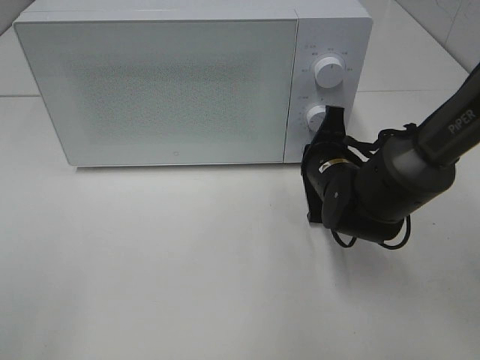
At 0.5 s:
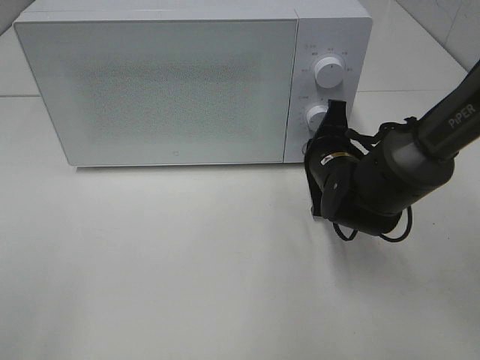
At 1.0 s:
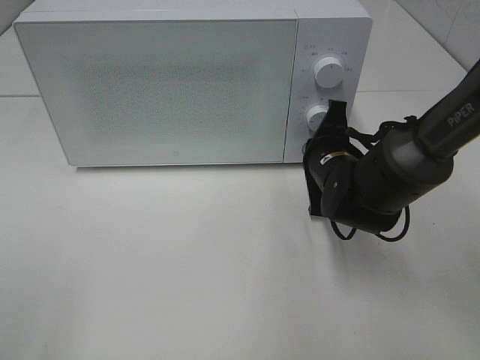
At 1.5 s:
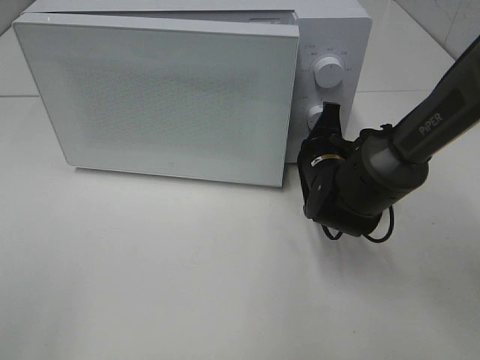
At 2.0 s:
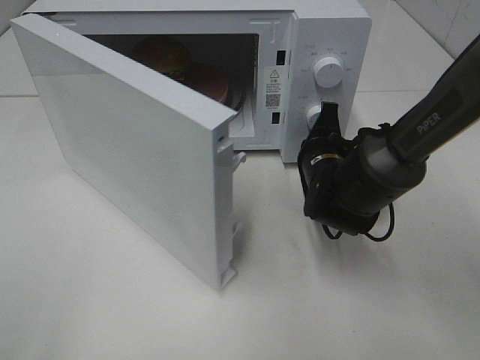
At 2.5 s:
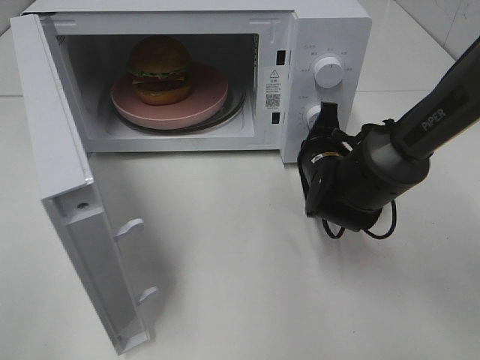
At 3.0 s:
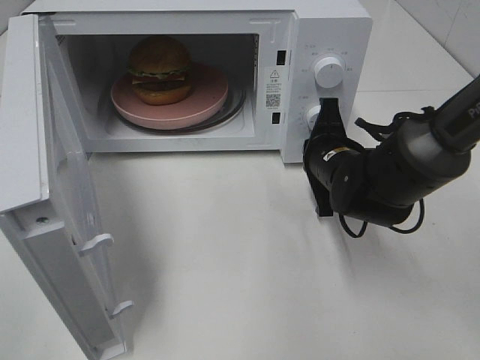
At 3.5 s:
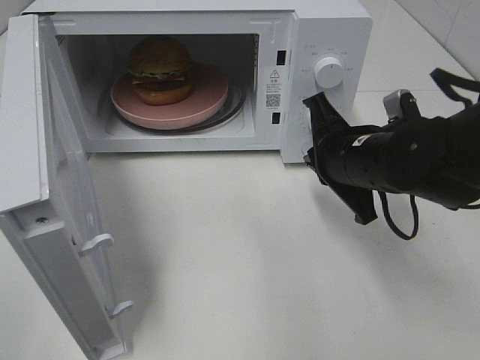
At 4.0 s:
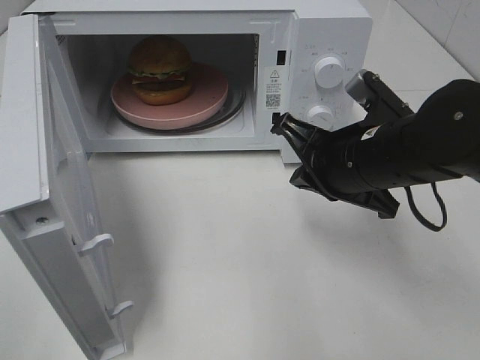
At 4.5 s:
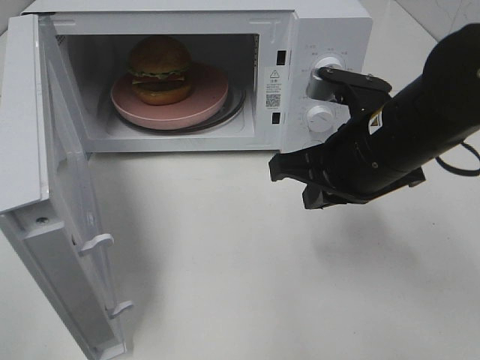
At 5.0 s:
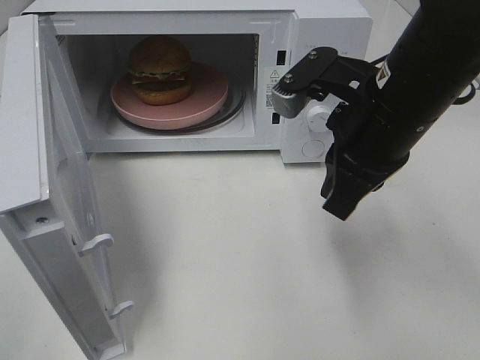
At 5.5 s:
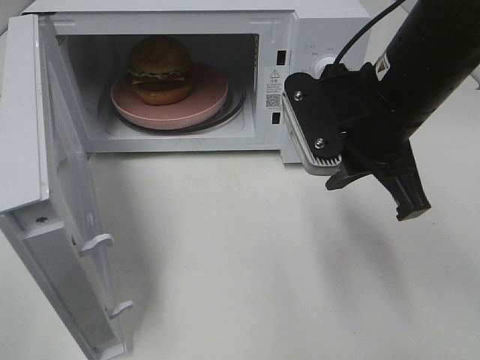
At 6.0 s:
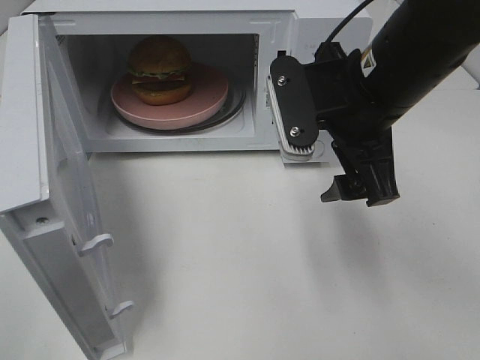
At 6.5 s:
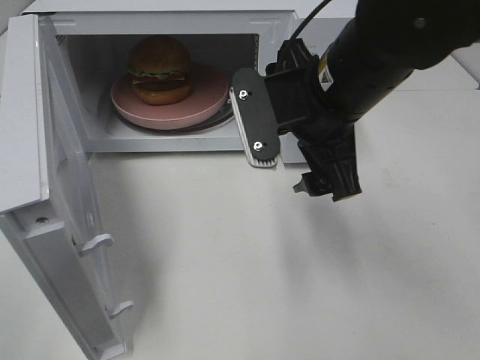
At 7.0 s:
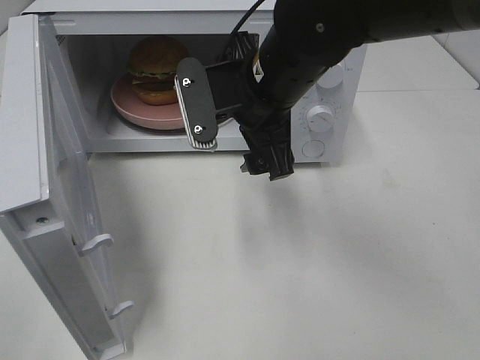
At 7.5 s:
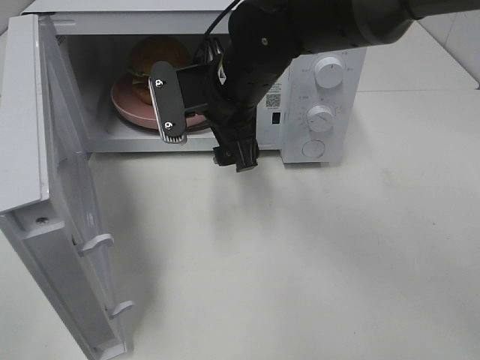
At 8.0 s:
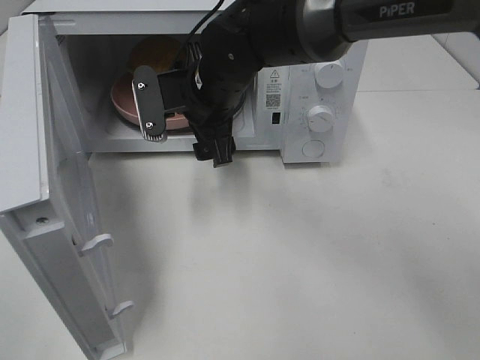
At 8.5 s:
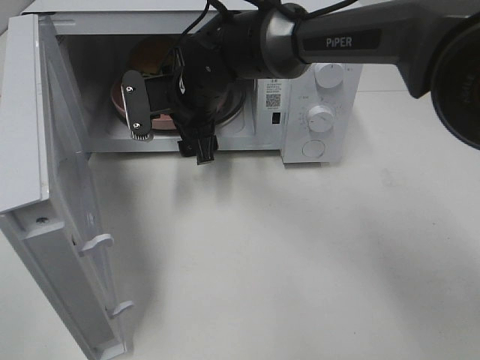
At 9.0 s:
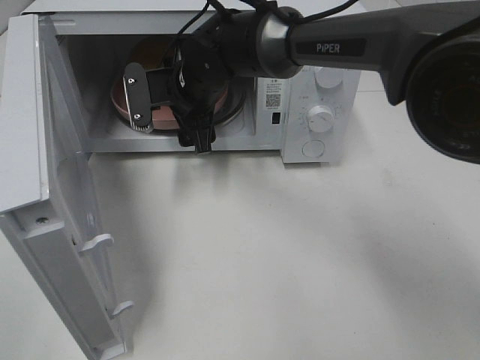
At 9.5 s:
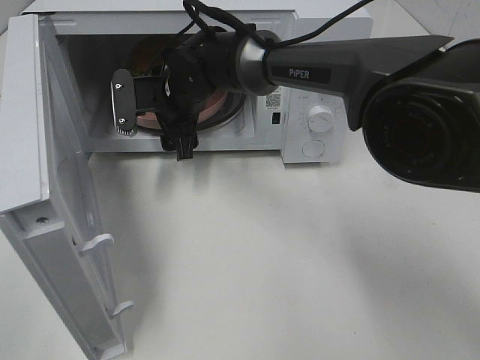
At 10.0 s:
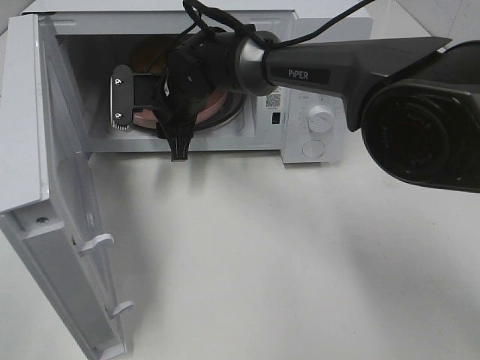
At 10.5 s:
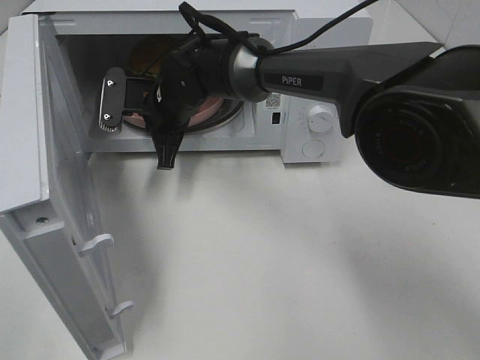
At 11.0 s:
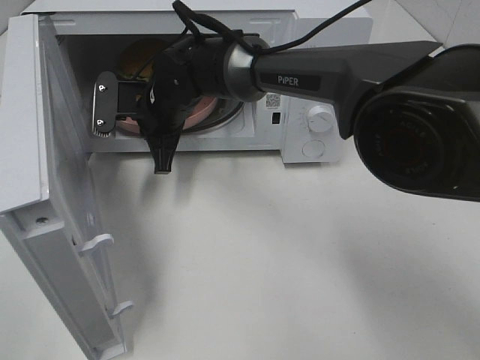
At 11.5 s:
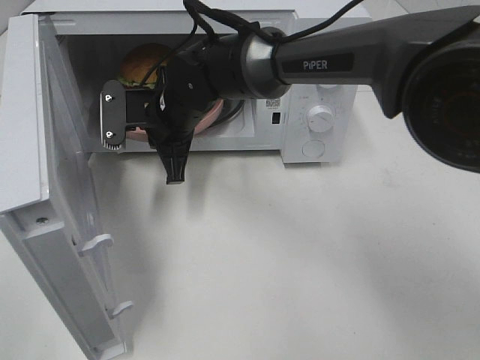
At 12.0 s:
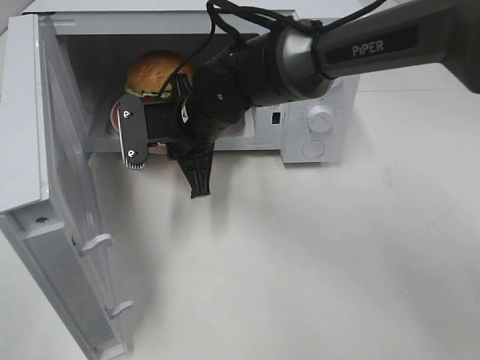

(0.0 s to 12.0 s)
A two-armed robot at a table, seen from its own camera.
Task of the whole recording: Heat the burger.
Step, 0.0 s - 3.0 s: Right hand: press the switch.
Step, 3.5 s - 10.5 s: Right hand: grab the plate with the hamburger.
2.0 s - 4.0 s: The right gripper goes about 15 cm upward and backward.
4.0 s - 6.0 s: The right gripper heads upward, covering roughly 10 cm, and opens its fingers.
6.0 s - 8.0 s: The right gripper moves to the left, forward and downward, about 20 cm.
8.0 s - 10.0 s: The right gripper is displaced forward by roughly 5 cm, and closes up.
10.0 s - 12.0 s: The right gripper moves backward, roughly 10 cm, and closes up.

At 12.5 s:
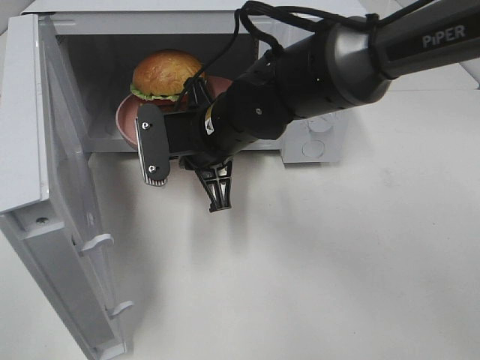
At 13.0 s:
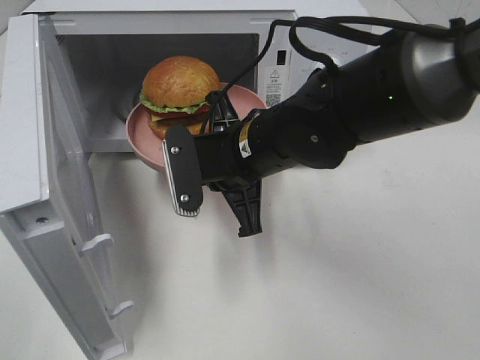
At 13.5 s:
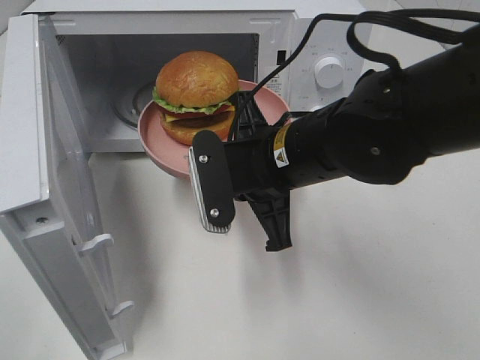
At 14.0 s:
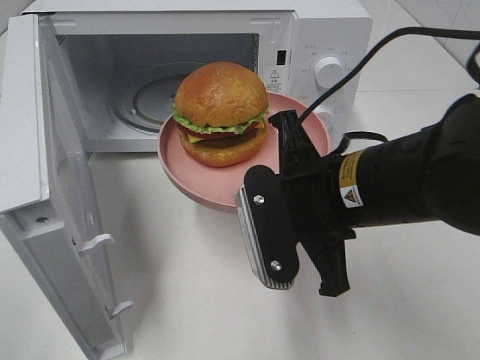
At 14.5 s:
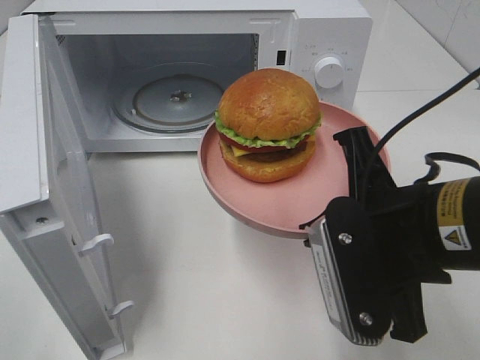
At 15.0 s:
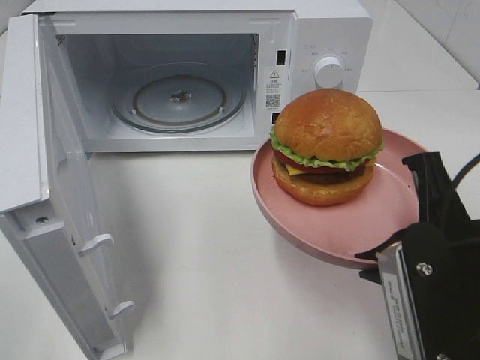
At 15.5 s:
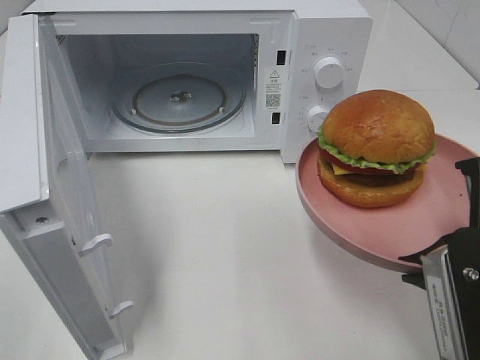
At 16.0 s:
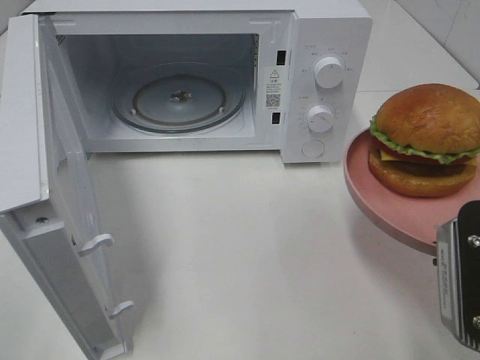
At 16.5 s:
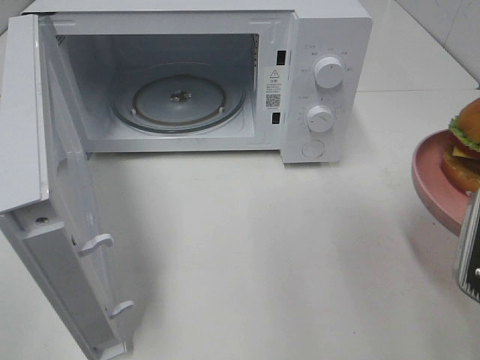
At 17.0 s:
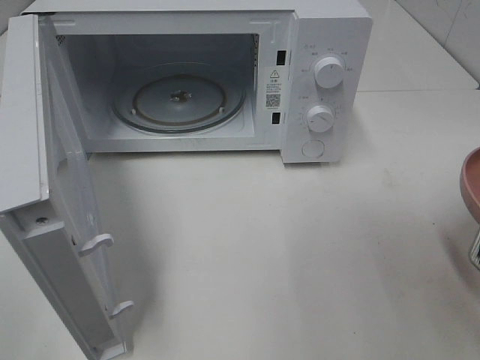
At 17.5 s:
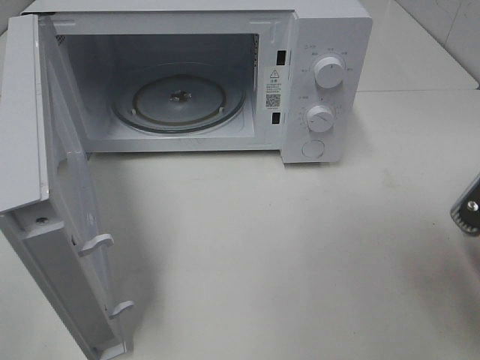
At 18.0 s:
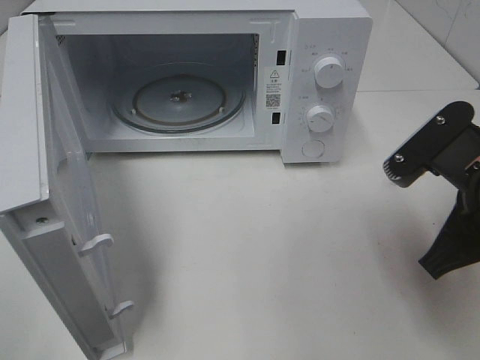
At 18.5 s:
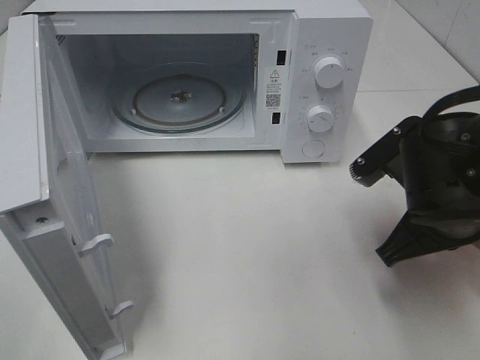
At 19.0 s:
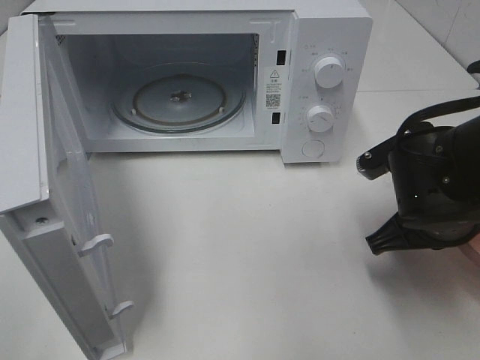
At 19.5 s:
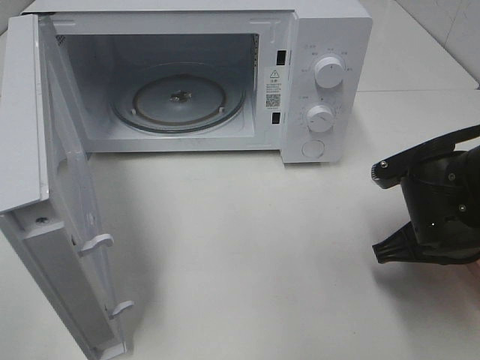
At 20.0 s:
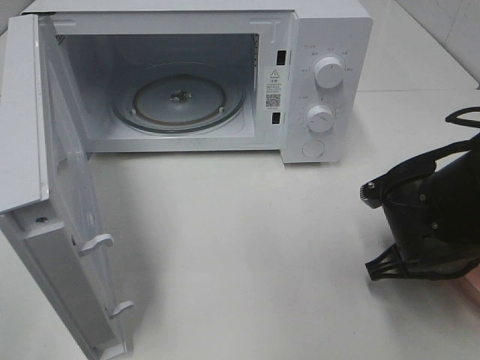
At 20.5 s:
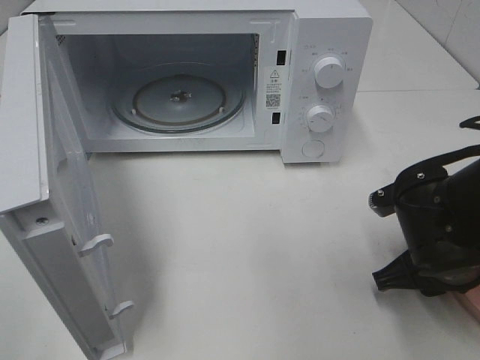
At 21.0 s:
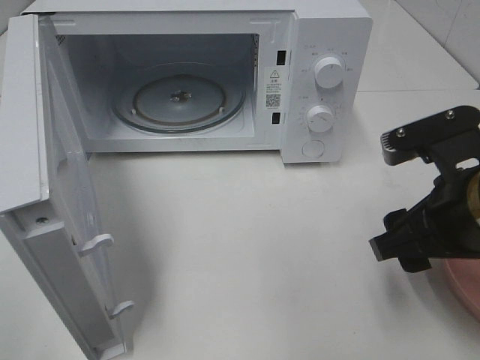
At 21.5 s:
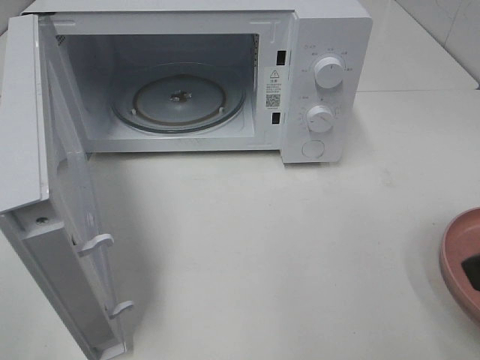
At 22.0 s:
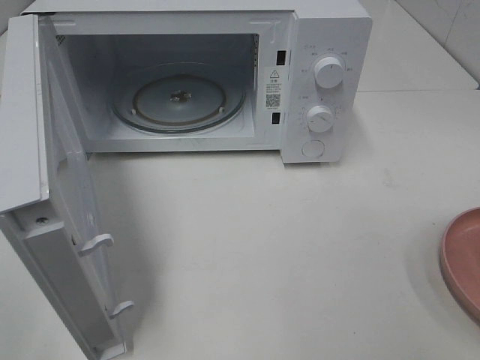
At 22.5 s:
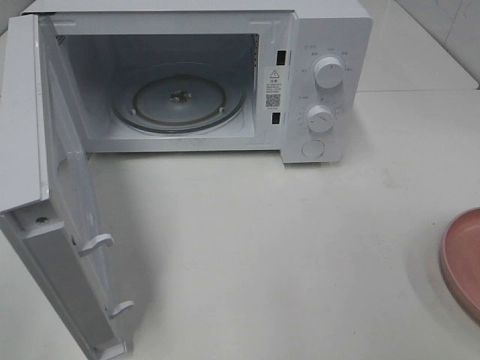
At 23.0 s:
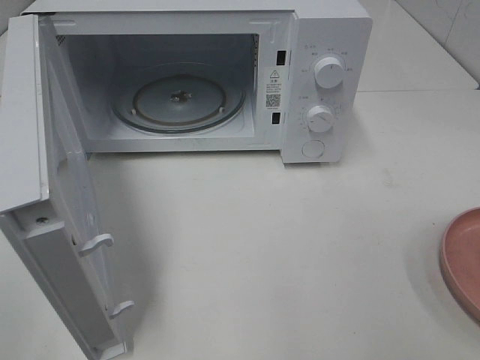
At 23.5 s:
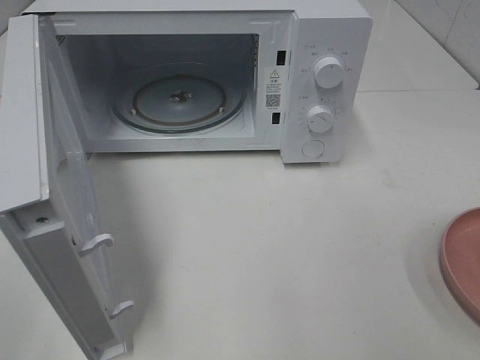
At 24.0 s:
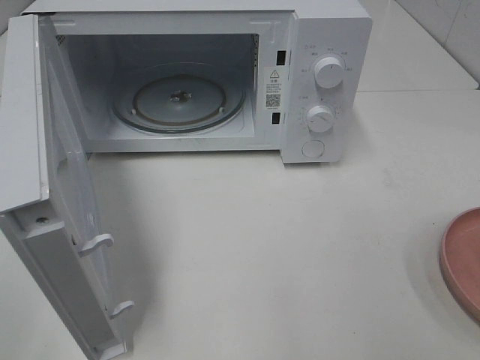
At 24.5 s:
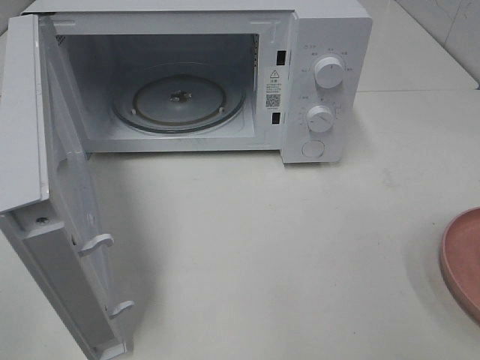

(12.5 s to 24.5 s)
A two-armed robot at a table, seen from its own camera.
Task of the whole recording: Heat the burger.
Step, 12.5 s - 20.0 s: Right hand: place the plate on the table.
12.5 s - 14.5 s: The right gripper moves backward and to the right, about 20 cm.
14.5 s - 16.5 s: The right gripper moves to the right, some 10 cm.
16.5 s - 18.5 s: The right gripper shifts about 10 cm forward and downward.
18.5 s - 20.5 s: The right gripper moves downward, about 5 cm, and opens.
20.5 s - 22.5 s: The right gripper travels backward, upward and to the right by about 30 cm.

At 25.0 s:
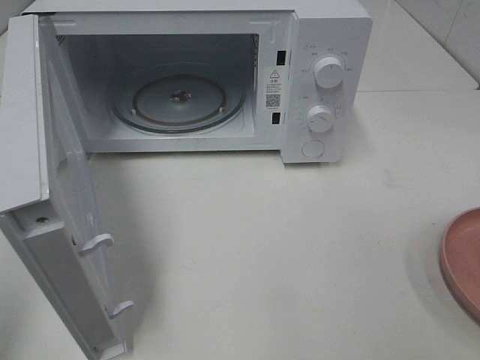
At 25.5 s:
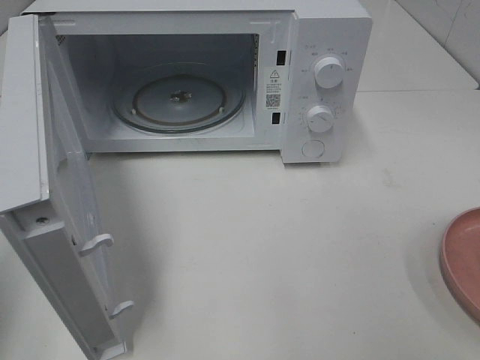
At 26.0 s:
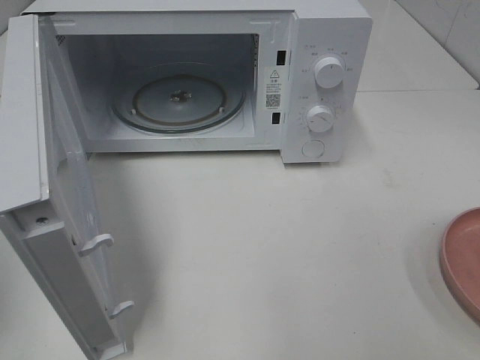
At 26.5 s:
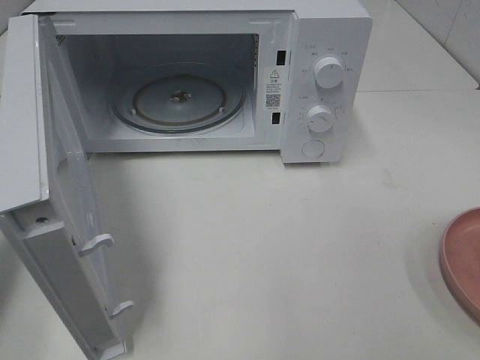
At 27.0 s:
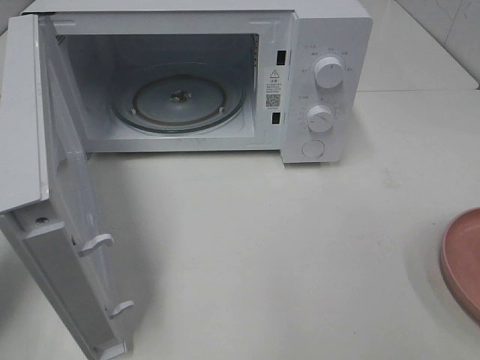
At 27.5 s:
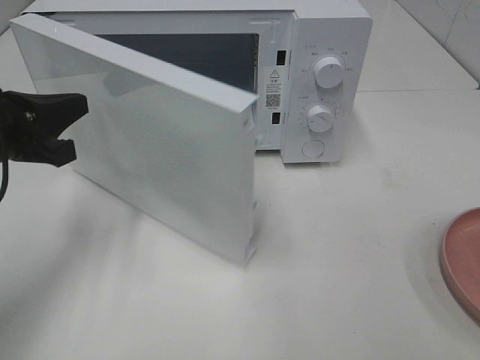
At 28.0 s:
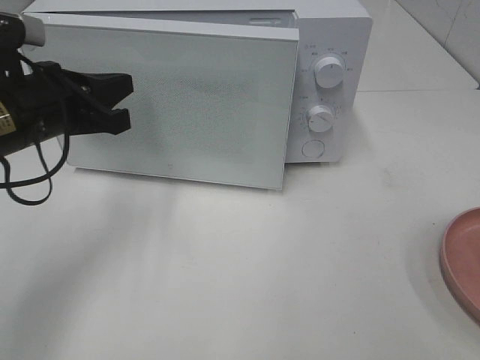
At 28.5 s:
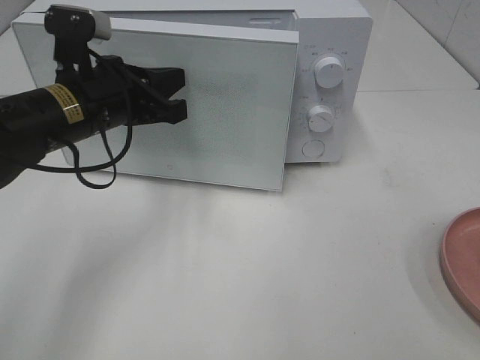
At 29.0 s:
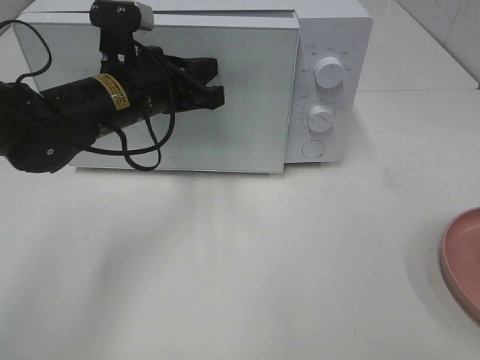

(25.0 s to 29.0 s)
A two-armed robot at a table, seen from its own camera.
Task of the whole recording: Heat the burger.
25.0 s - 27.0 s: The left gripper moves forward and downward, about 20 cm.
27.0 s - 29.0 s: The left gripper heads to the right and forward, covering roughly 25 cm.
